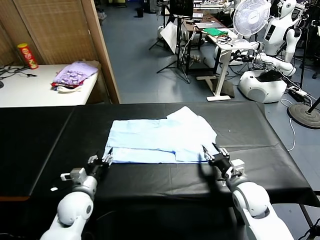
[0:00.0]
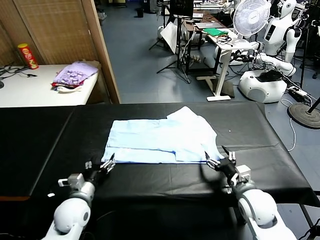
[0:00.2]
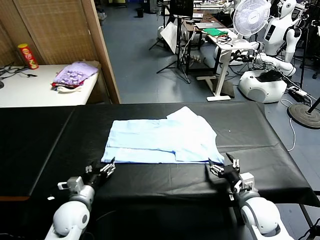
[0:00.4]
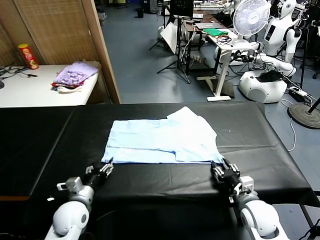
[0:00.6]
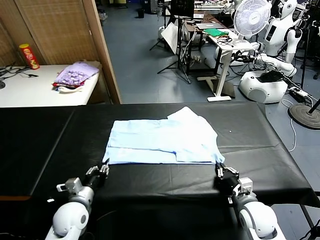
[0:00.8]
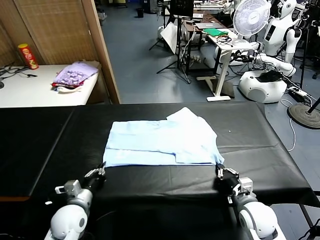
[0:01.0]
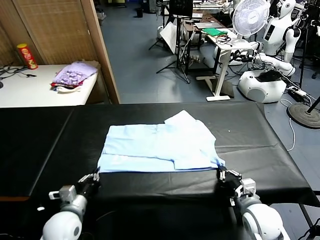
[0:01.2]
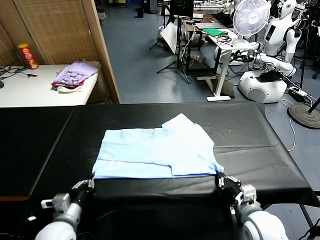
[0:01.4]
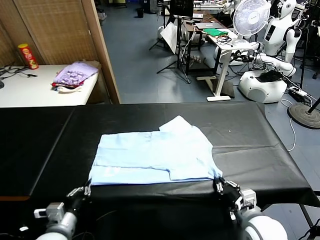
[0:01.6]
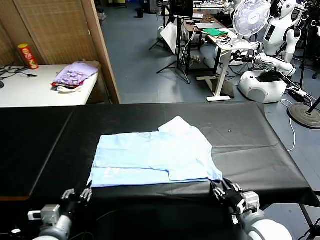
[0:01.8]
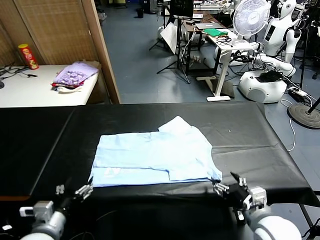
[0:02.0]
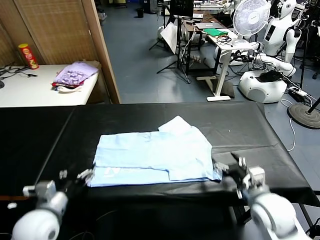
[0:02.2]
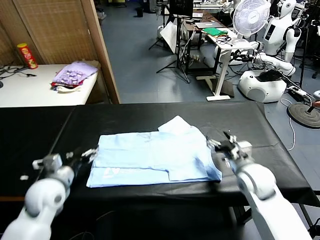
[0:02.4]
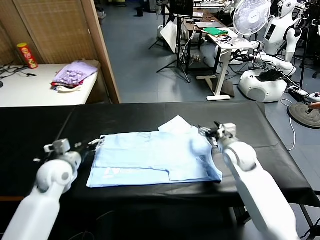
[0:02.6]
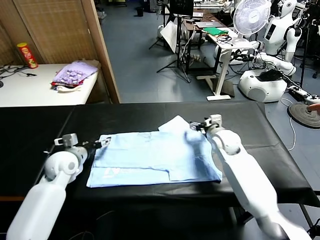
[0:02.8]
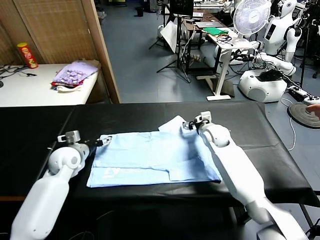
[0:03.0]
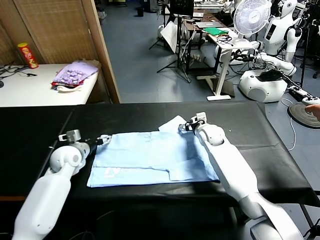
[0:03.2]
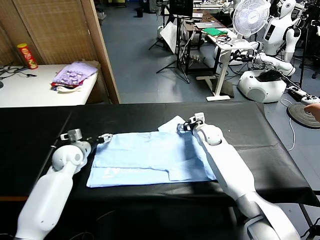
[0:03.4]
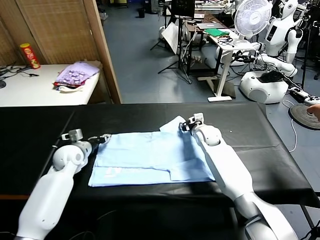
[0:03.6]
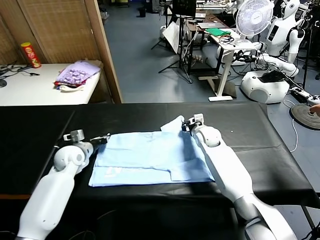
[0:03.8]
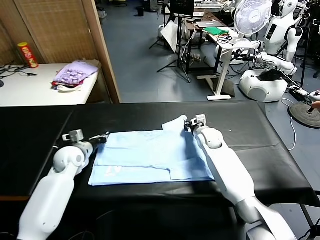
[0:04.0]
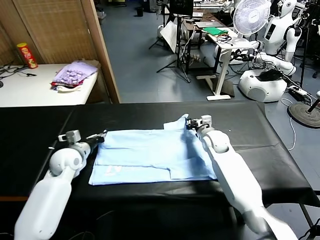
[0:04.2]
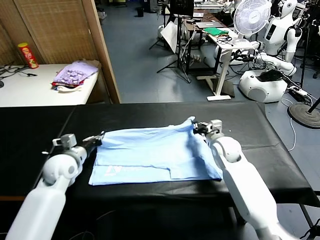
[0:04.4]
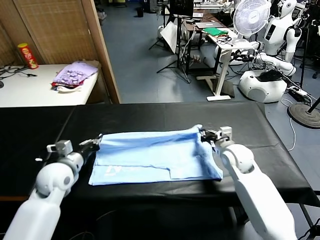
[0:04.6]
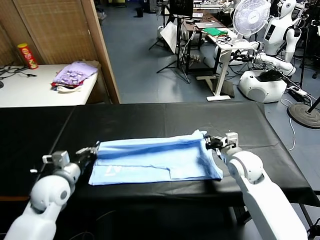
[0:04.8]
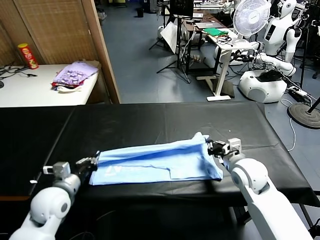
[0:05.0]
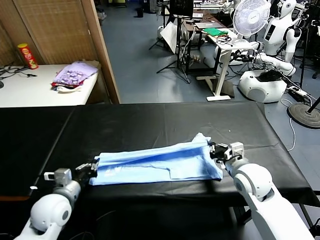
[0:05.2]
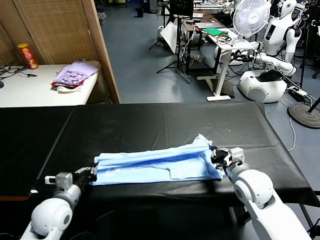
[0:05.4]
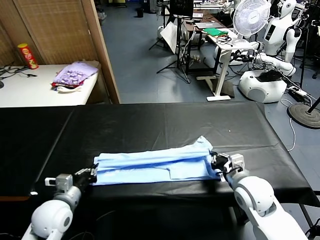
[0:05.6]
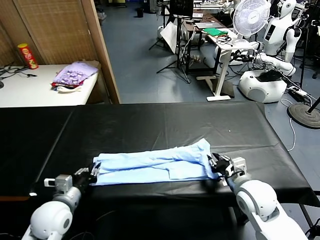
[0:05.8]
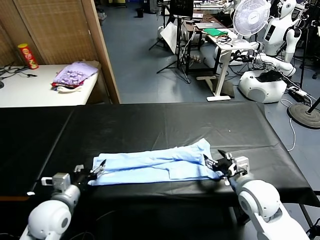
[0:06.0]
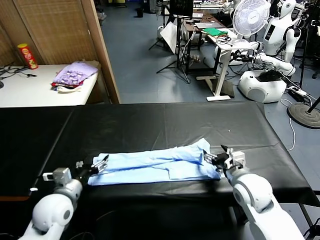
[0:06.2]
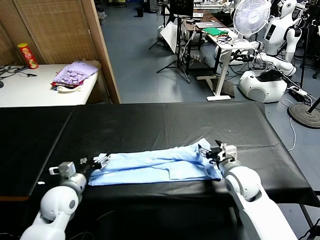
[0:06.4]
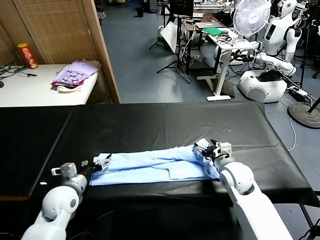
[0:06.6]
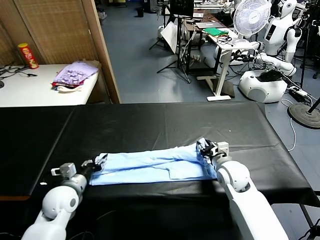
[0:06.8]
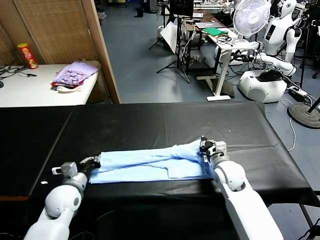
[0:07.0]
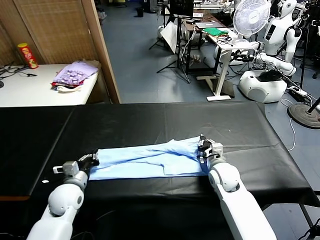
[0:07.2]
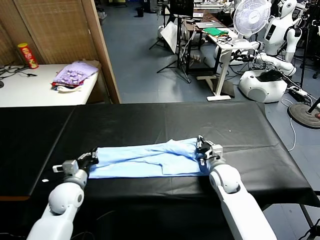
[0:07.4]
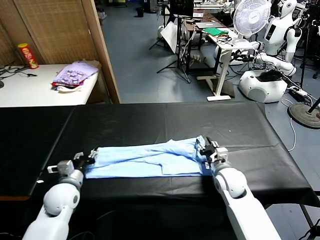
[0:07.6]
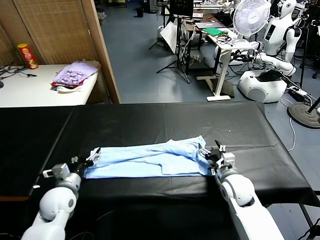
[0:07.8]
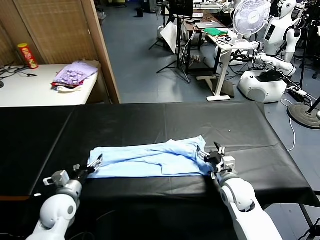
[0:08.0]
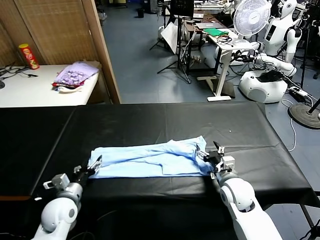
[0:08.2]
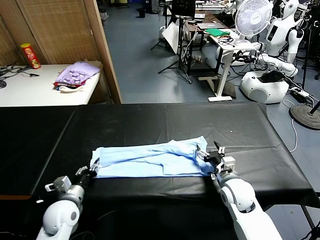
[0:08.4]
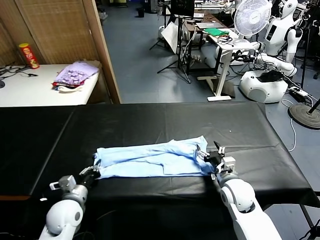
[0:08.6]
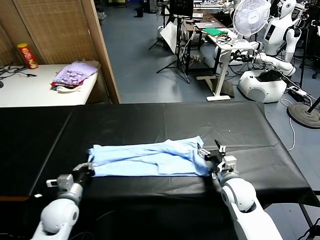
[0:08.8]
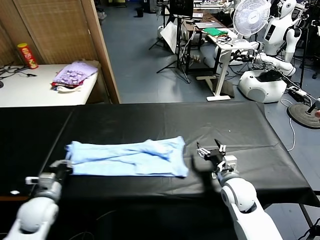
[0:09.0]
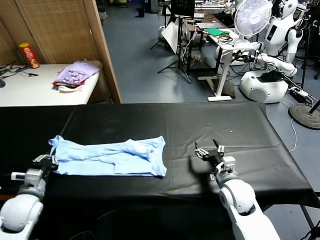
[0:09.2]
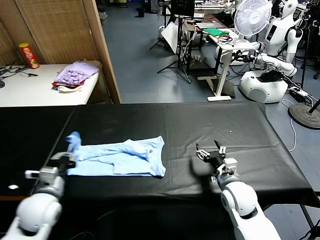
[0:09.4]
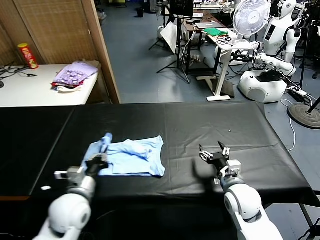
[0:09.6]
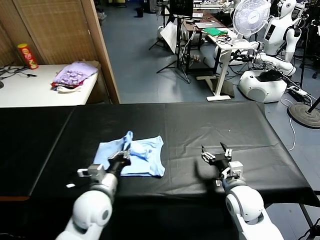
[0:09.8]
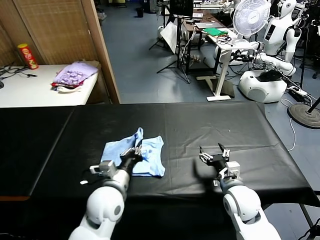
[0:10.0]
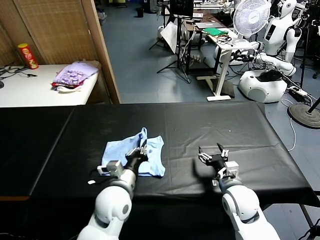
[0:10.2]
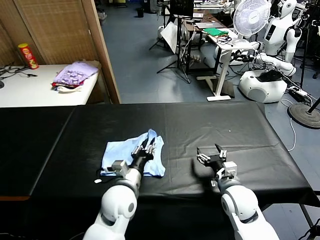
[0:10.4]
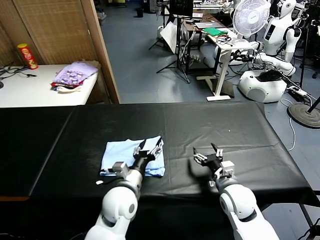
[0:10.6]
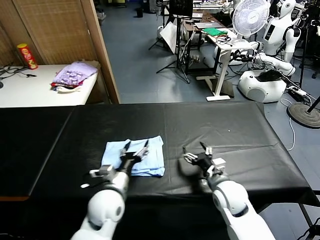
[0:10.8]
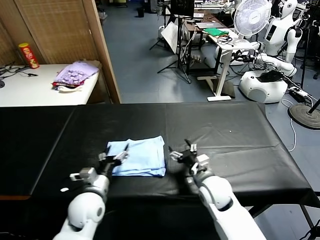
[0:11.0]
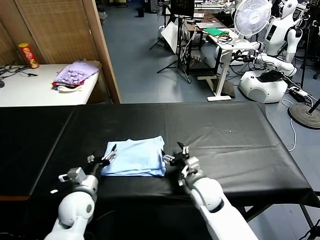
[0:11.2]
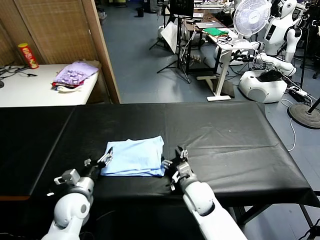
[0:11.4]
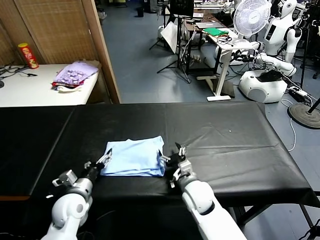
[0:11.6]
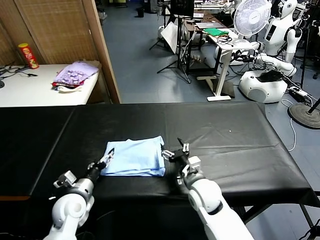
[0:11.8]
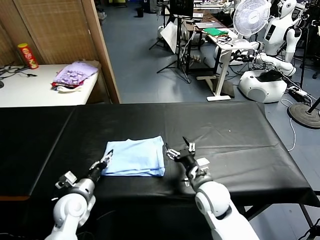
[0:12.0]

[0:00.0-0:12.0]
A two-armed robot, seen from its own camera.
Task of the whole recording: fold and organize the clothes.
Step, 0:00.0 to 0:01.6: Drag the clothes downward with both gripper.
Step, 0:01.8 to 0:03.6: use both grippers simultaneously to clamp the upper edge of the clothing fabric.
Step, 0:04.0 to 0:05.8: use both grippers to drag the upper edge of the fabric backward and fold it over the lower edge.
Step, 0:06.0 to 0:08.6: use the left gripper to clamp the left edge of the fabric.
Step, 0:08.8 to 0:10.4: use the left gripper to drag the left edge of the fabric to the left and folds it over the right edge.
0:00.0 to 0:01.6: The two grippers go about 10 cm backward. The left gripper closes up, while the right gripper closes and opens again.
0:01.6 to 0:03.0: The two grippers go roughly 30 cm forward. The left gripper opens.
0:03.0 to 0:04.4: The left gripper heads backward, covering roughly 5 cm, and closes its fingers; the right gripper shifts approximately 15 cm backward and to the right, and closes up.
0:04.4 to 0:06.0: The two grippers go roughly 15 cm backward. The right gripper opens. The left gripper opens.
0:06.0 to 0:07.6: The left gripper travels forward and downward by about 10 cm, and closes, then reopens; the right gripper moves downward and forward, approximately 10 cm, and closes and opens again.
0:07.6 to 0:09.0: The left gripper goes approximately 5 cm to the left, and closes up.
0:09.0 to 0:10.4: The left gripper moves to the right, some 25 cm.
0:10.4 to 0:12.0: The left gripper is displaced to the left by roughly 15 cm, and opens up, while the right gripper heads to the left, covering some 10 cm.

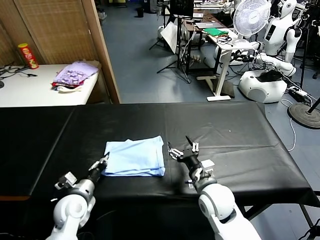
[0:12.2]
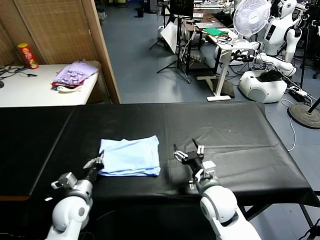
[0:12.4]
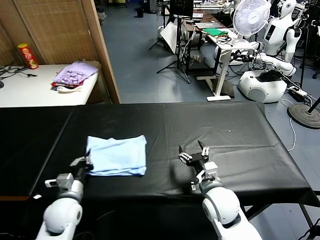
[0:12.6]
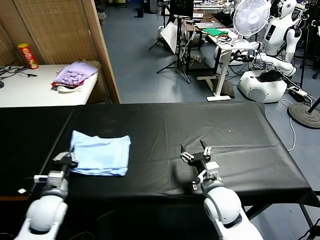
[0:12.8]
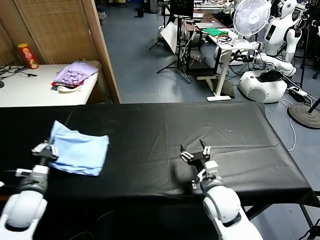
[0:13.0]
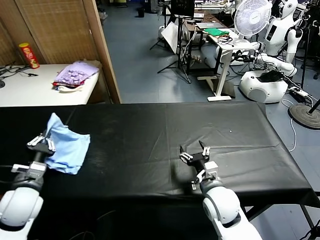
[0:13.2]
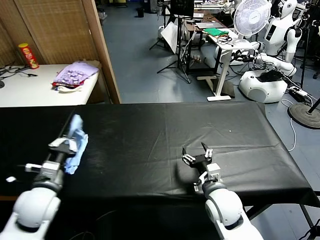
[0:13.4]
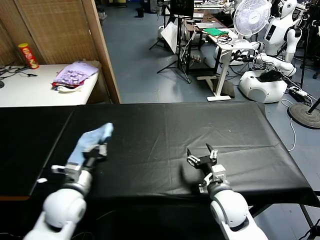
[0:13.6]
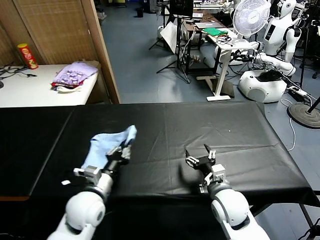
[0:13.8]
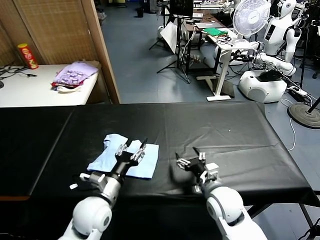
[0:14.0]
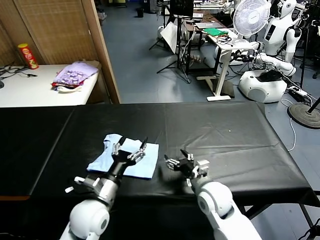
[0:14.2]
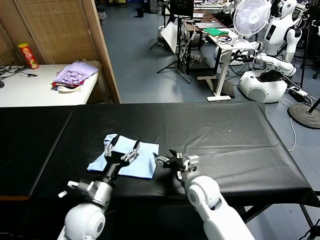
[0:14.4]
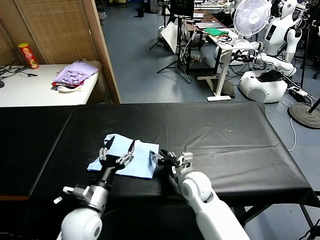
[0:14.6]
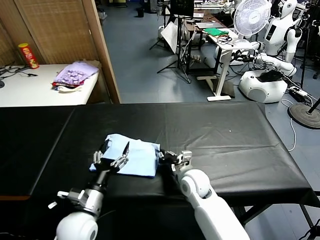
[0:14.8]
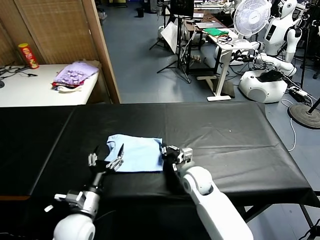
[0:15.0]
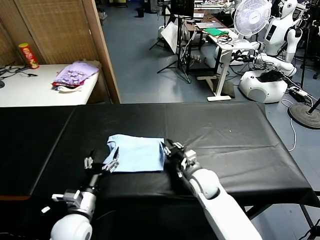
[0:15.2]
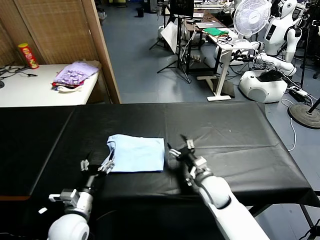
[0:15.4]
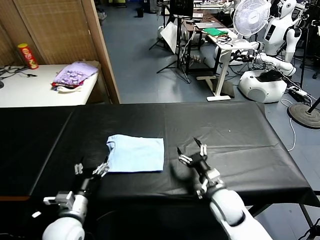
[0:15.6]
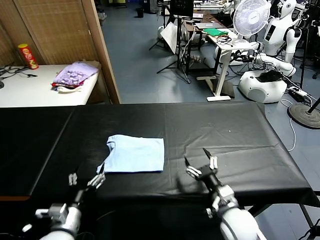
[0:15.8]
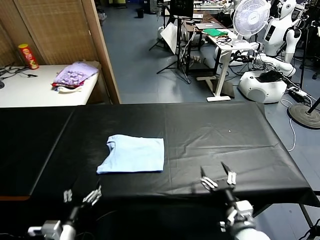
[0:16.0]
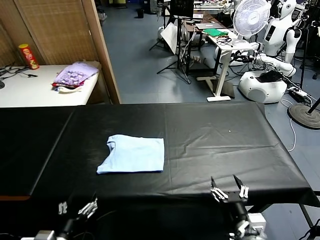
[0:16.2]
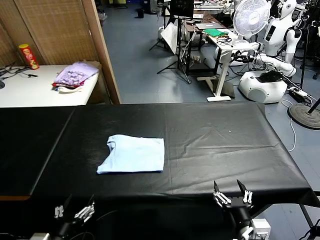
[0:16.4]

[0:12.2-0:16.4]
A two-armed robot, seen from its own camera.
Task of the whole recording: fold and organize the clothes.
Step, 0:14.0 to 0:15.2: Drag the clothes to the center of the table.
0:12.2 to 0:13.6: The left gripper goes about 10 cm upward, and reaches some 10 cm to the left, then returns.
0:13.6 to 0:15.0: The right gripper is displaced forward and to the left by approximately 15 cm, and closes its fingers; the left gripper moves approximately 10 cm, and opens its fingers.
0:15.0 to 0:16.4: The left gripper heads backward, covering about 15 cm; the right gripper moves backward and to the right, some 30 cm, and opens.
